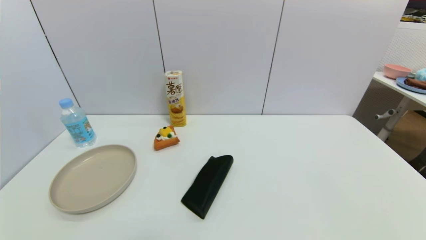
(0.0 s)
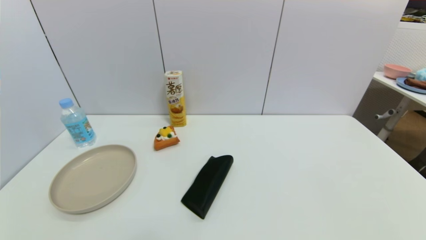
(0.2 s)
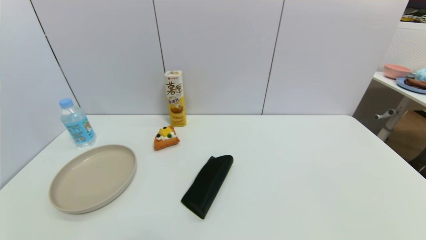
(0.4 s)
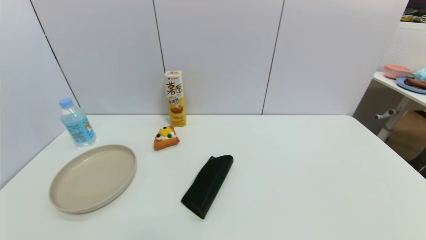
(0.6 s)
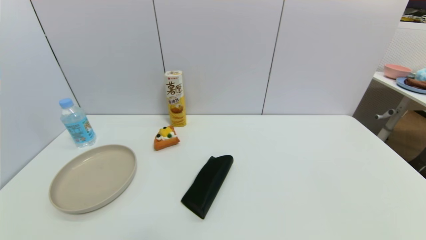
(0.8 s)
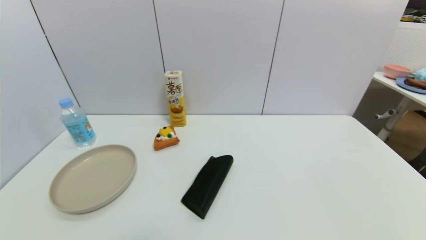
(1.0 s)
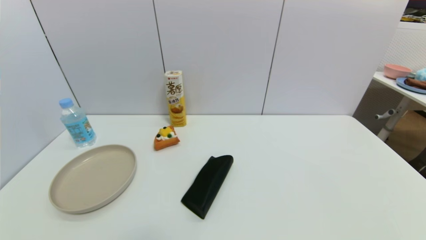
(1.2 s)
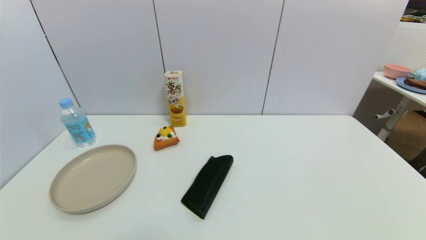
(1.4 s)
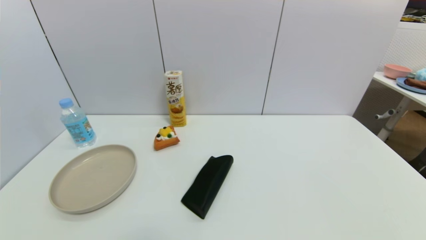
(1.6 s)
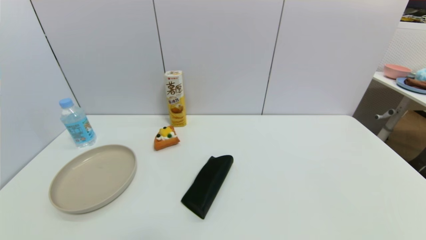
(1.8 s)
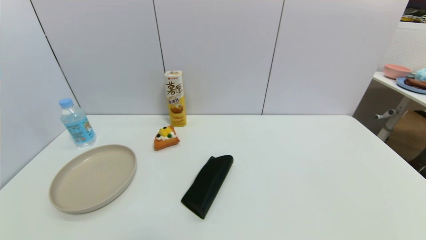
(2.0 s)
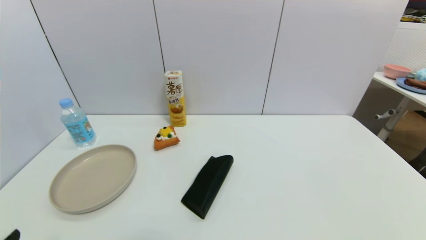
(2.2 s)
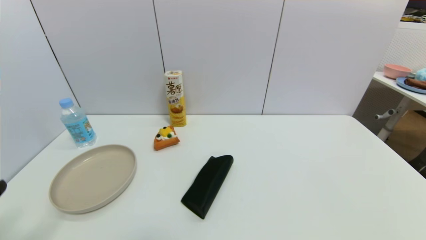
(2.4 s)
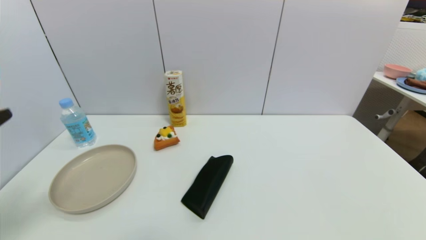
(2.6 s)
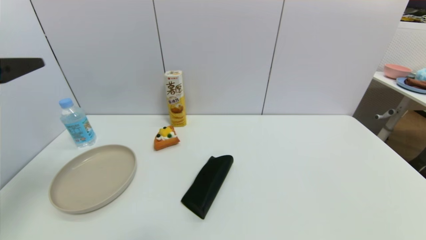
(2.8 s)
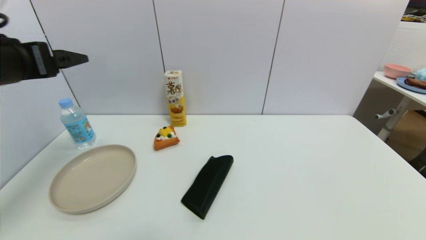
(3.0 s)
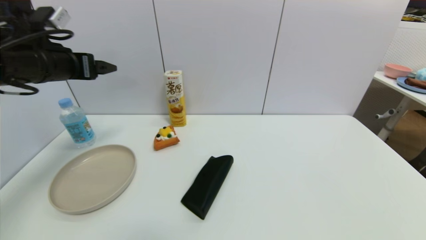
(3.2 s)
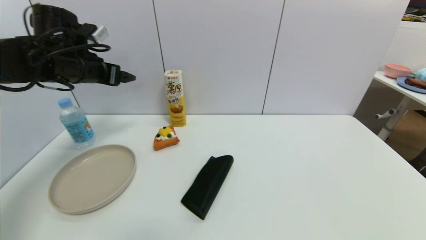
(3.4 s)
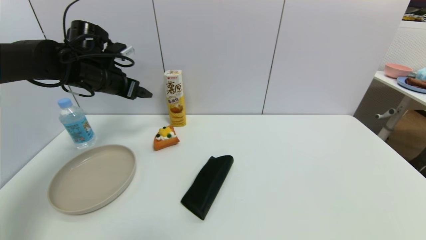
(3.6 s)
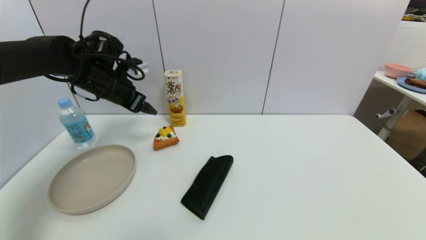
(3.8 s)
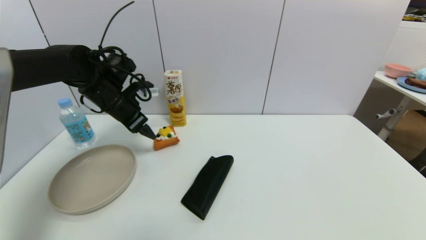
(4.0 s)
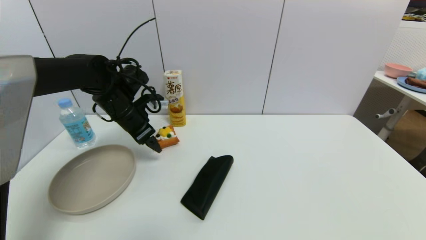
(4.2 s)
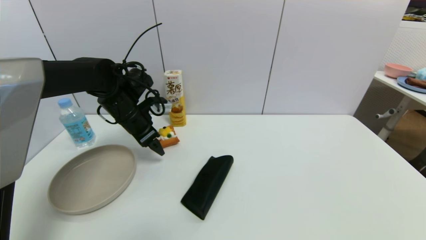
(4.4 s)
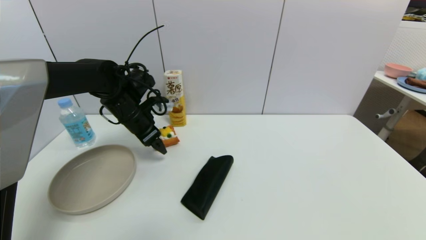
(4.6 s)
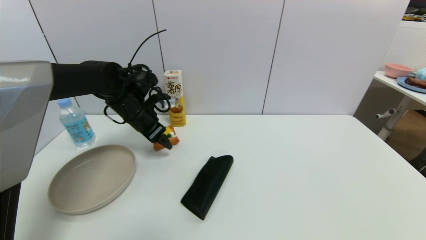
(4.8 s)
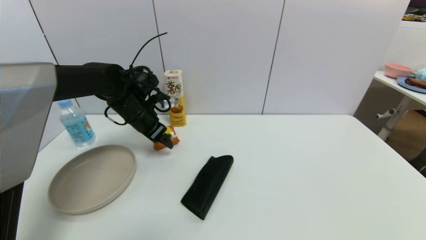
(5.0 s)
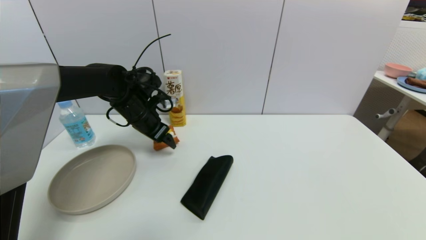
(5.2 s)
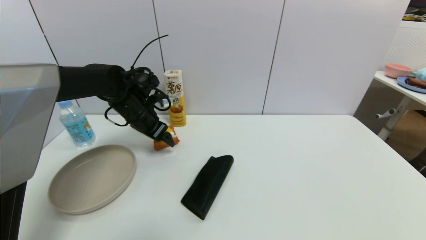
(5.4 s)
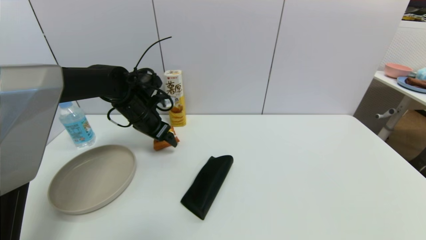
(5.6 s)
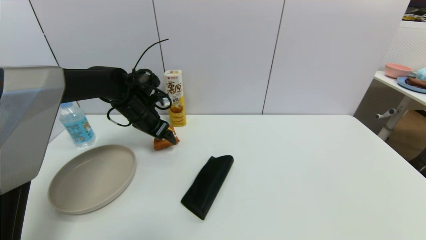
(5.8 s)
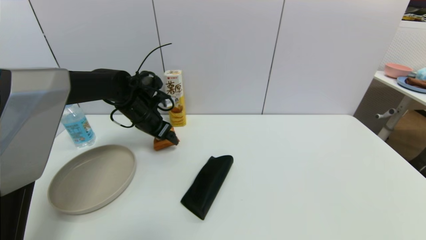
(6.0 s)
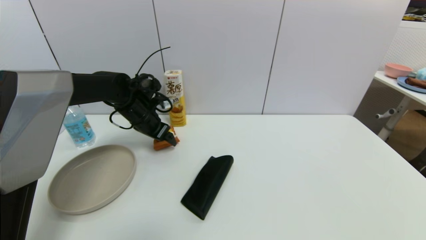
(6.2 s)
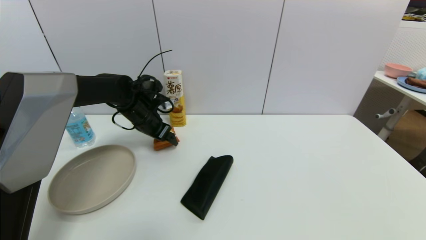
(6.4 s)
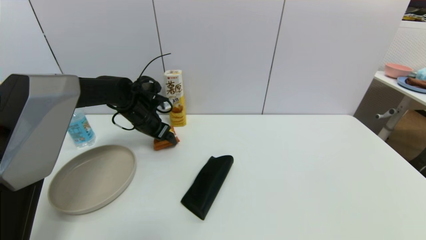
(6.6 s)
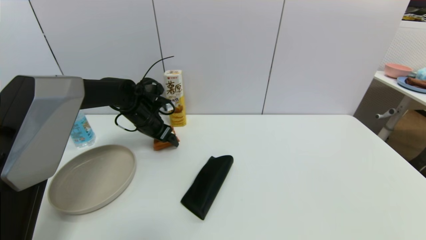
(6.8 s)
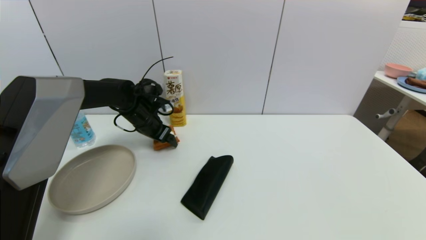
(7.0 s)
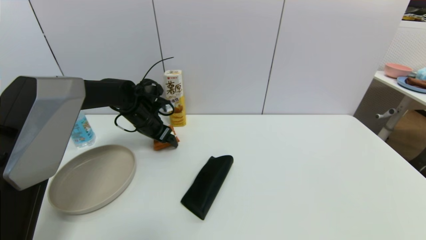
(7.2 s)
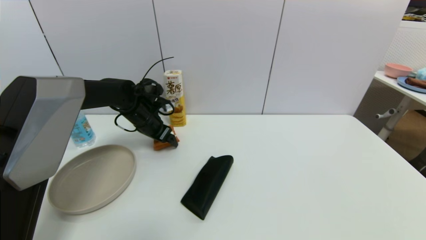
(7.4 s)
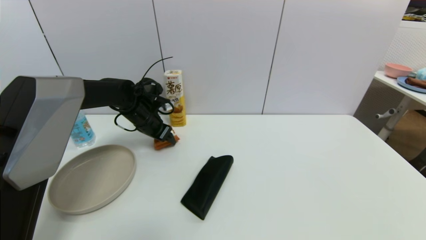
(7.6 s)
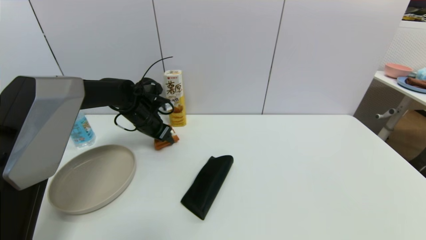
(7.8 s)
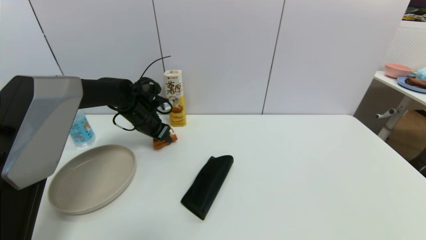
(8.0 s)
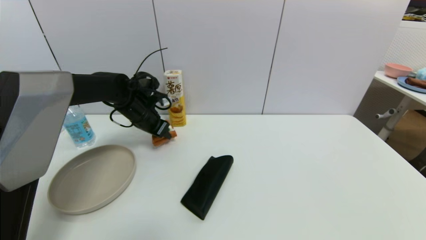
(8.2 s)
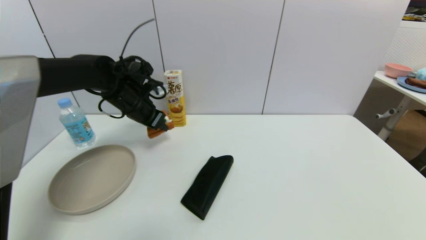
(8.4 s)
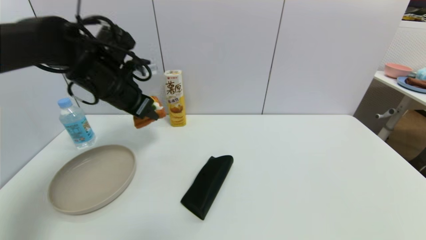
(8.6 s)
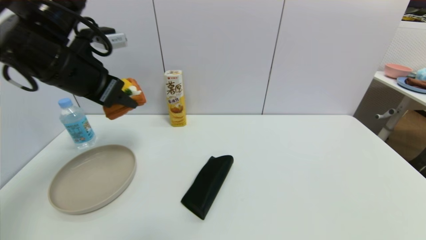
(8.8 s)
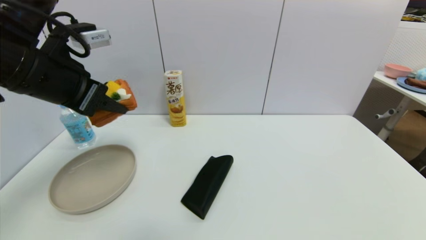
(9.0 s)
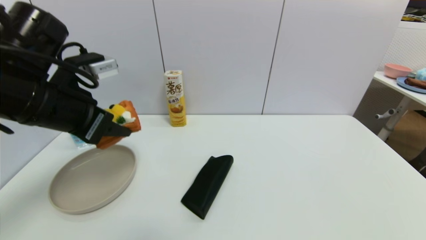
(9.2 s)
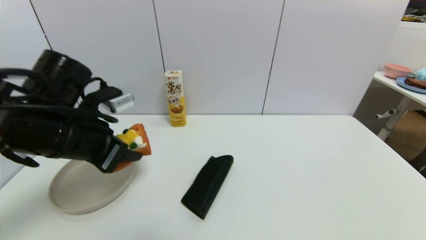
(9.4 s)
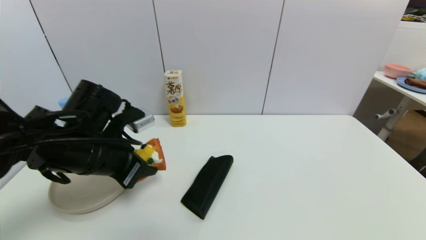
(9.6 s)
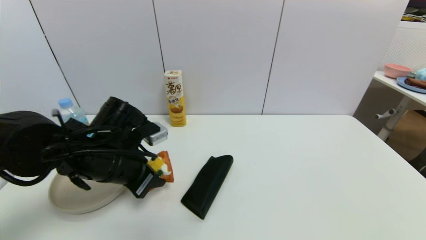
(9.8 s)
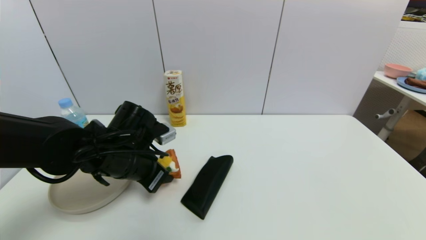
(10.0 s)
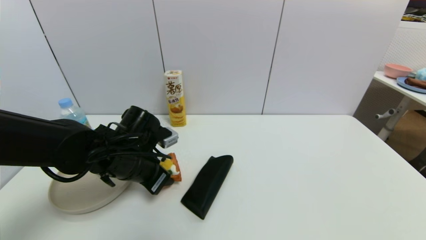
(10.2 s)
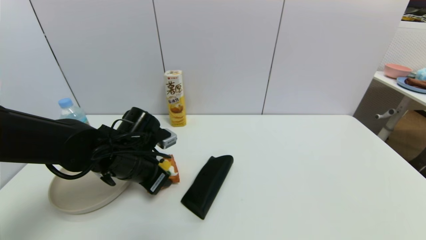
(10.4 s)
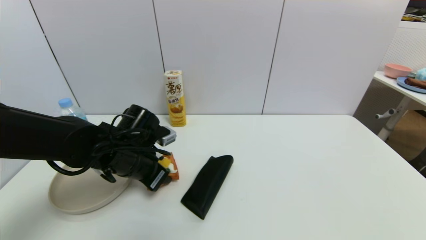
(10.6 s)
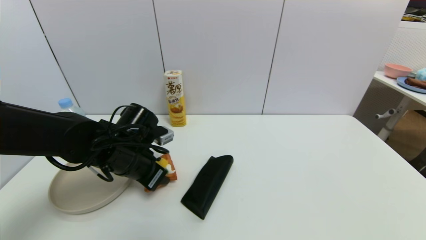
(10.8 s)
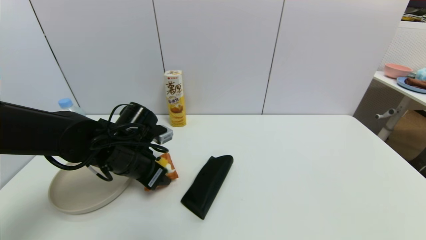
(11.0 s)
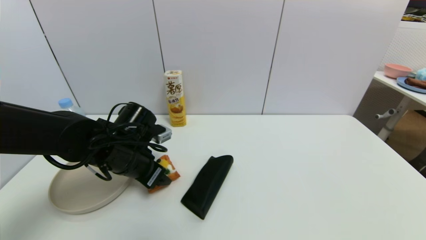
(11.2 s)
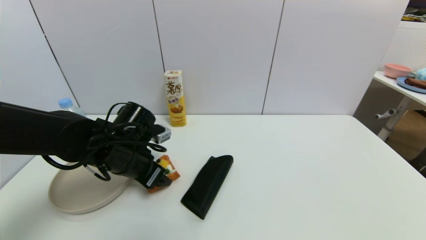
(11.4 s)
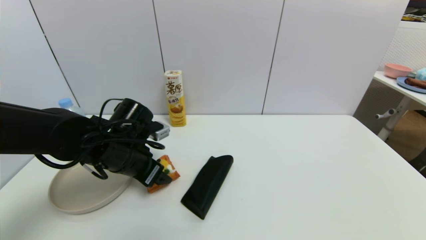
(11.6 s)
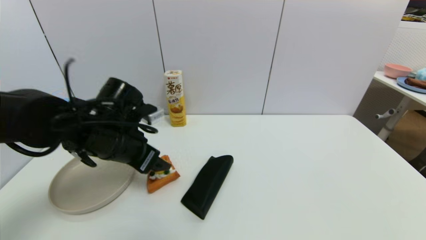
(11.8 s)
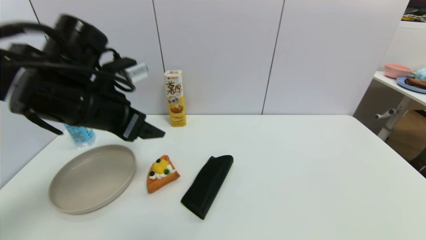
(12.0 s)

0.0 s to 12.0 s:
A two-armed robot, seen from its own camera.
Step, 2.2 to 8.0 s: Grasp the pizza with left gripper.
Step, 8.2 to 11.4 s: Place the pizza on the table with left gripper.
0.0 to 1.6 s: Both grippers stay put.
1.6 to 3.0 s: The left gripper travels upward and forward by approximately 35 cm.
3.0 to 4.4 s: The left gripper heads forward, downward and to the right, covering about 25 cm.
4.4 to 6.0 s: The grippers move only a little.
6.0 to 7.6 s: The left gripper closes up.
7.6 to 9.0 s: The left gripper shifts some 25 cm backward and upward, and closes its fingers.
9.0 to 10.4 s: The left gripper moves downward, roughly 20 cm.
10.4 to 12.0 s: The left gripper is displaced upward by roughly 15 cm, and opens its fingers.

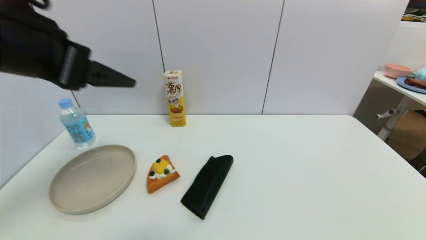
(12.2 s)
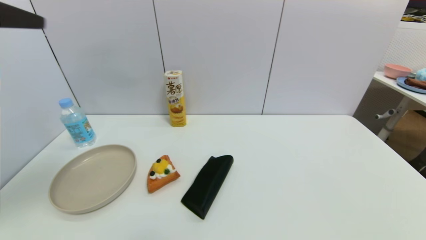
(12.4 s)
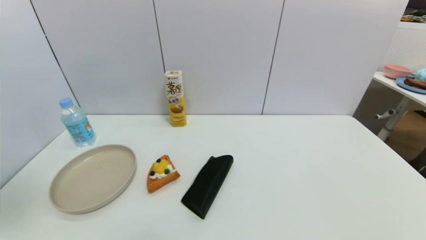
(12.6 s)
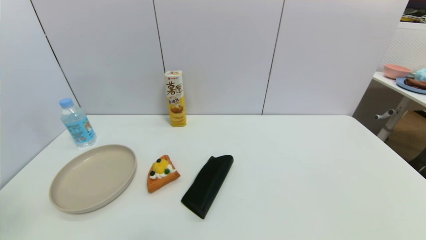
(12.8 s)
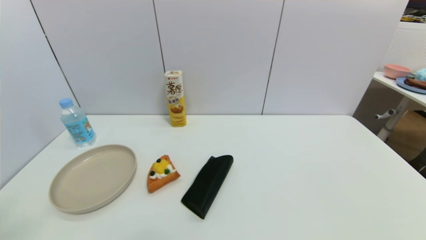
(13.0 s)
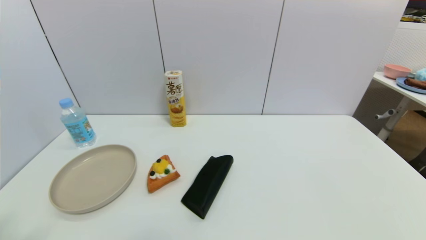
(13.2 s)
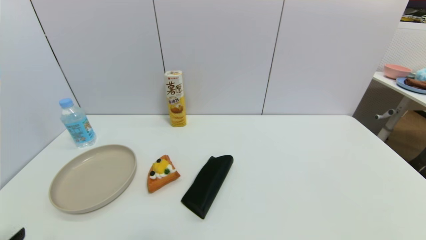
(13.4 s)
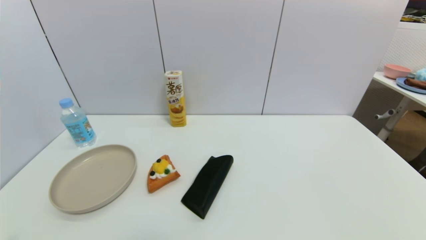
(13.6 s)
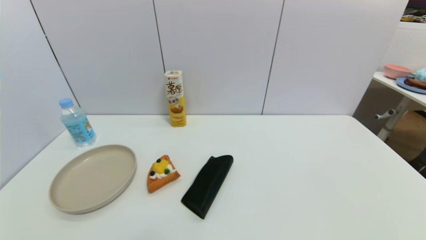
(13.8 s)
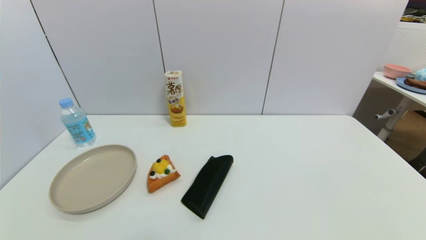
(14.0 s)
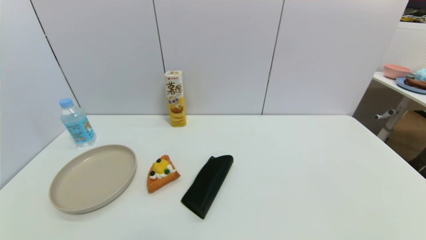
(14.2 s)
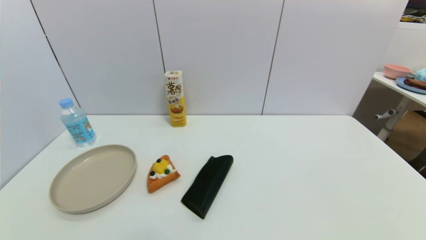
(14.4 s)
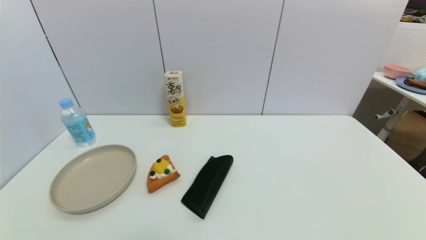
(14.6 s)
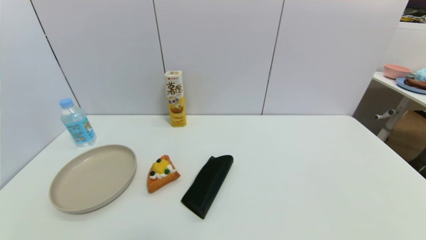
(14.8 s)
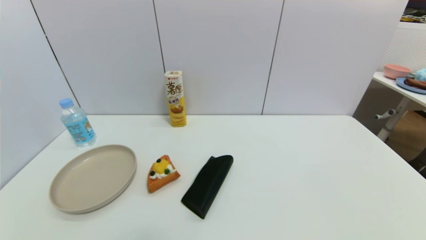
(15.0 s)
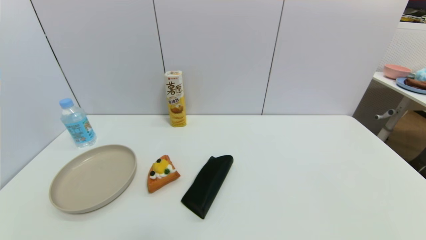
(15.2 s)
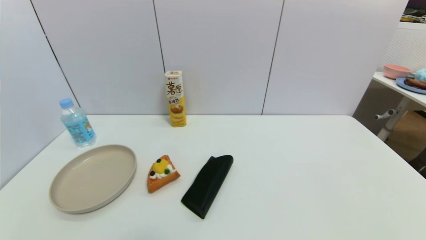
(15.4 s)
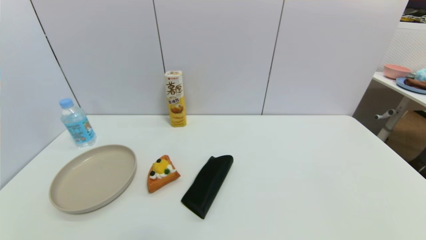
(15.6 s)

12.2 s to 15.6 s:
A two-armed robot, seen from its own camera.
12.2 to 13.8 s: The left gripper shifts about 35 cm downward and backward.
